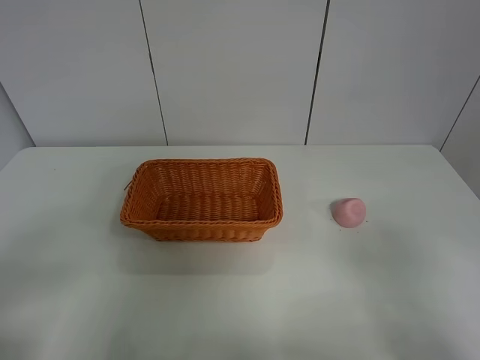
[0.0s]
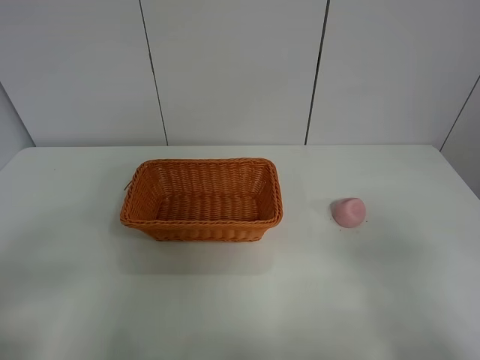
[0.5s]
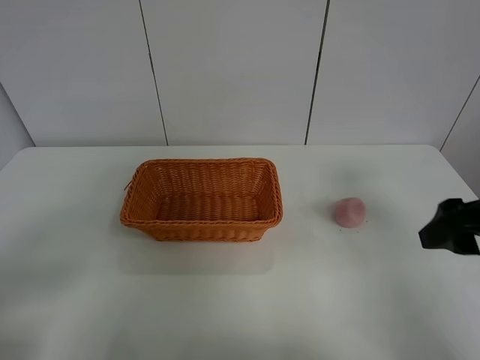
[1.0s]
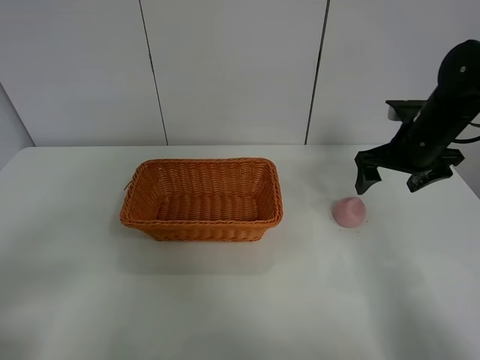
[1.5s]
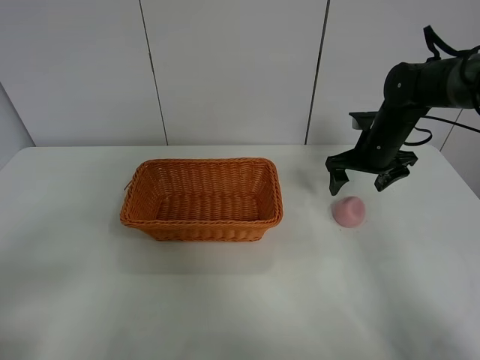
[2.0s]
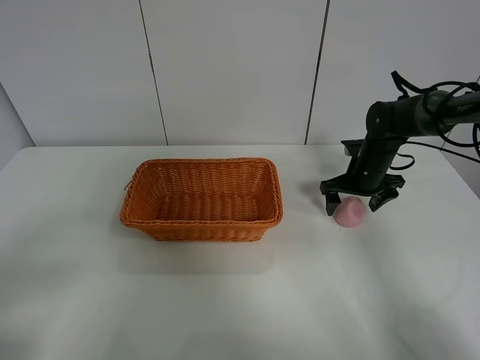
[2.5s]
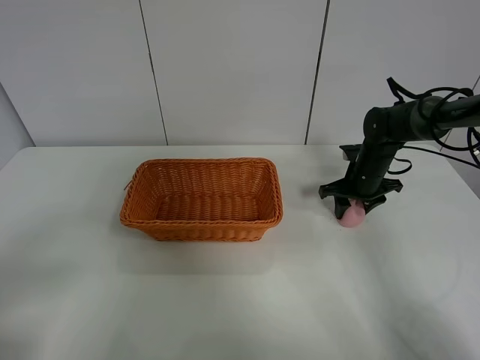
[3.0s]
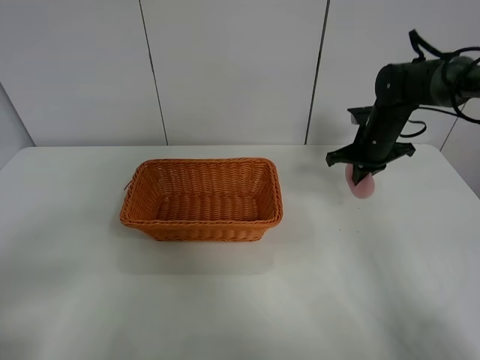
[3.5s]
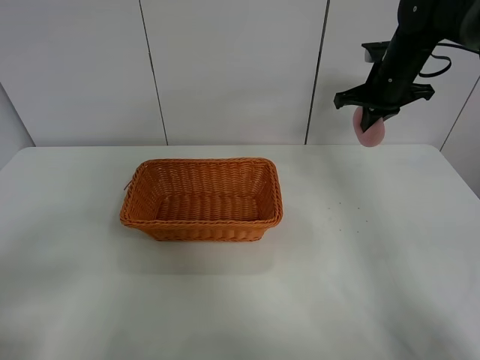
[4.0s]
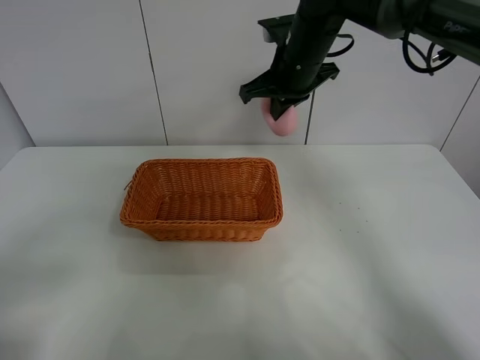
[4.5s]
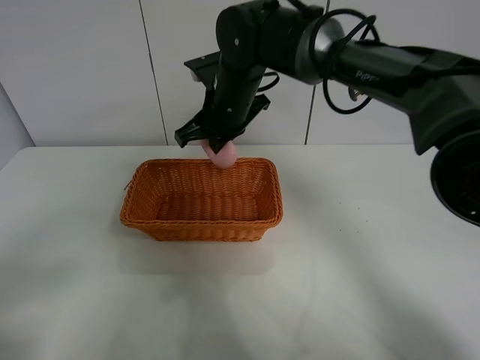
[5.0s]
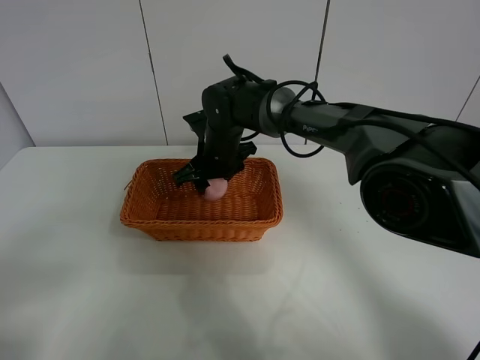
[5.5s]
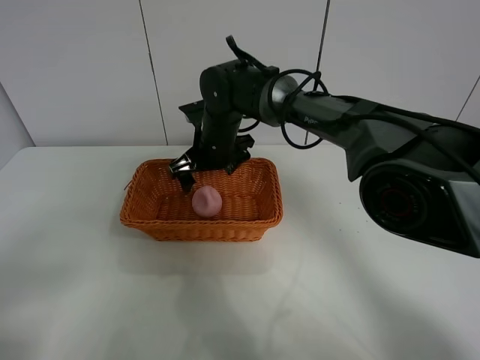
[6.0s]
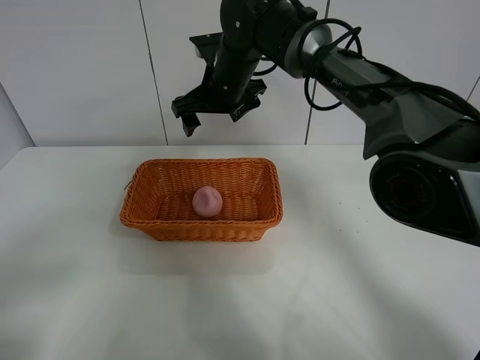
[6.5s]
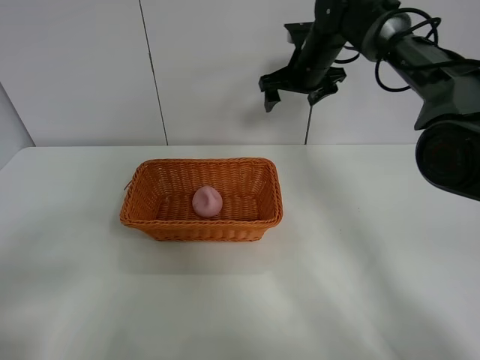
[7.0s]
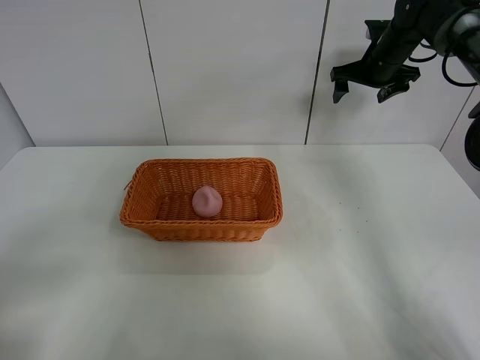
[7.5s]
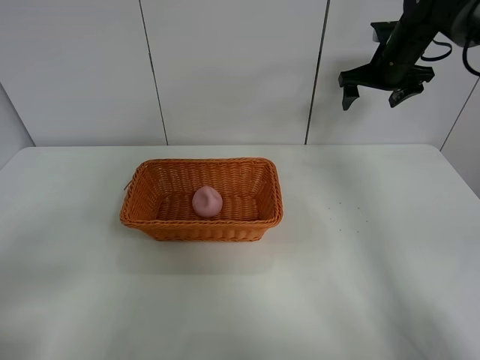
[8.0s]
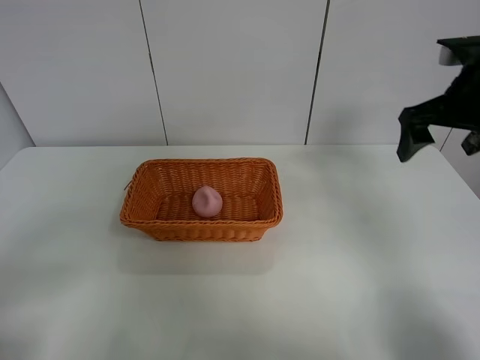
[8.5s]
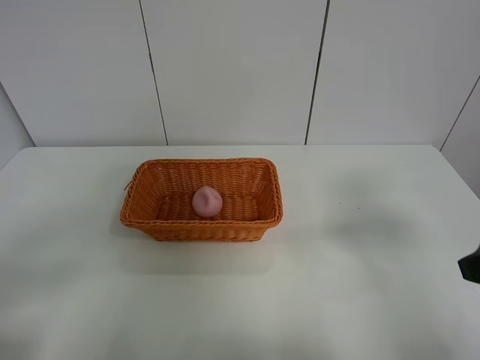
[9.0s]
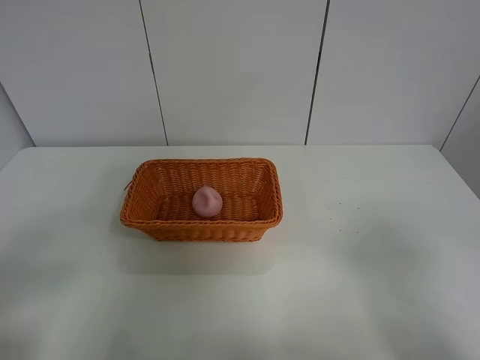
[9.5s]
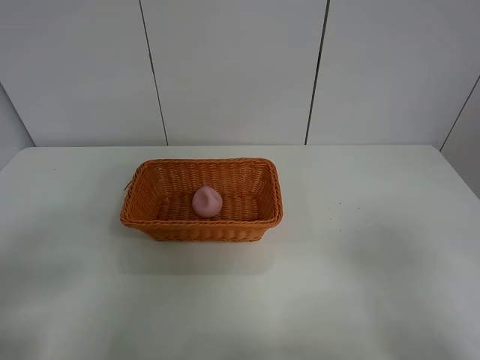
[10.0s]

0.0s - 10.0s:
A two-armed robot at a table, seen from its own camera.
Step, 0.0s - 3.0s: Grasp the peach with right gripper.
Step, 3.5s - 6.0s: Place the peach in the basket with right gripper.
0.0s - 2.0s: The right gripper shifts approximately 40 cm forward.
2.0s - 4.0s: The right gripper travels upward by some 10 cm, and closes up.
4.0s - 6.0s: The right gripper travels to the left by about 25 cm, and opens up.
6.0s - 8.0s: The right gripper goes roughly 30 cm to the right.
8.0s - 10.0s: The right gripper shifts about 50 cm backward.
